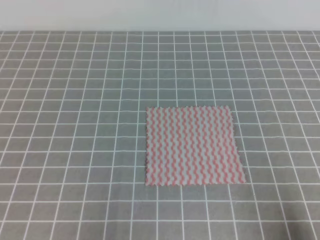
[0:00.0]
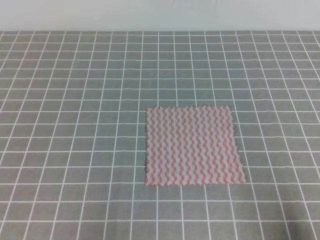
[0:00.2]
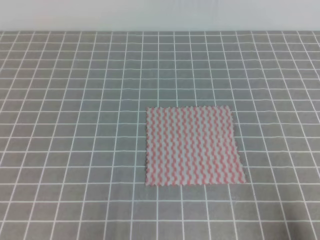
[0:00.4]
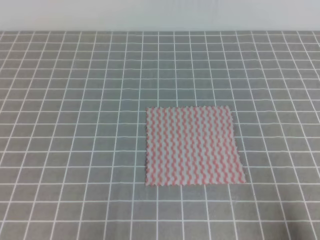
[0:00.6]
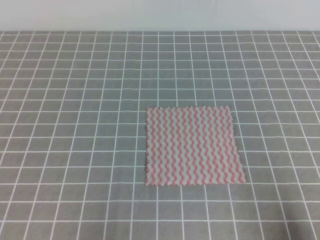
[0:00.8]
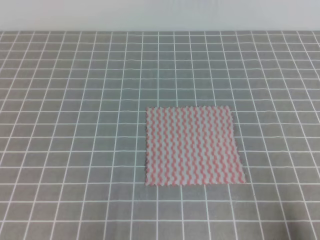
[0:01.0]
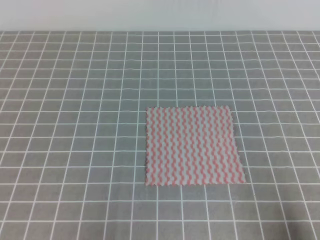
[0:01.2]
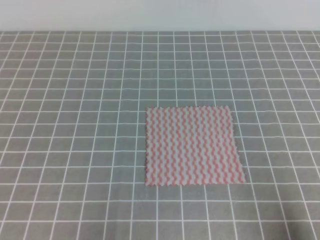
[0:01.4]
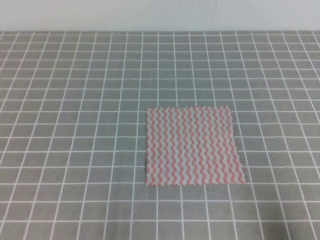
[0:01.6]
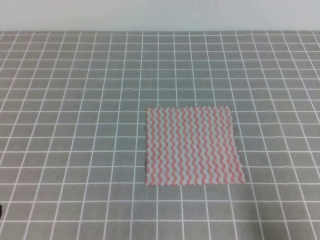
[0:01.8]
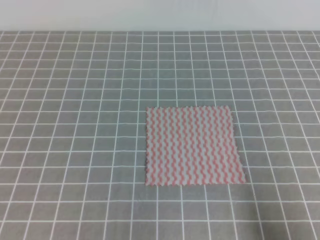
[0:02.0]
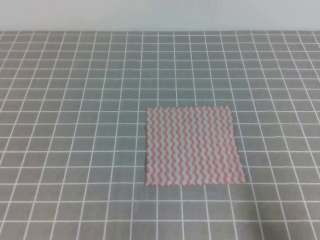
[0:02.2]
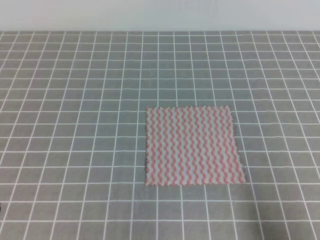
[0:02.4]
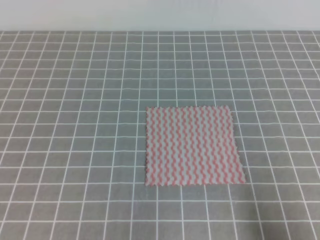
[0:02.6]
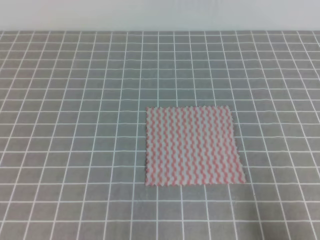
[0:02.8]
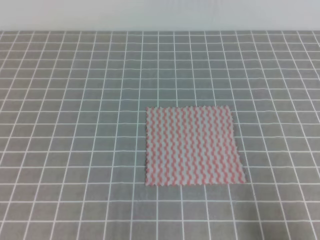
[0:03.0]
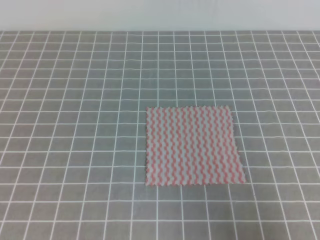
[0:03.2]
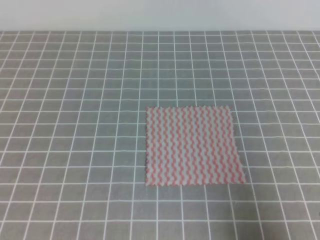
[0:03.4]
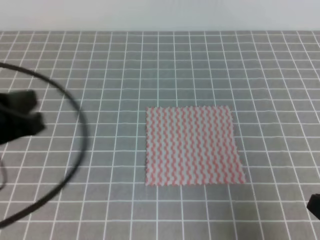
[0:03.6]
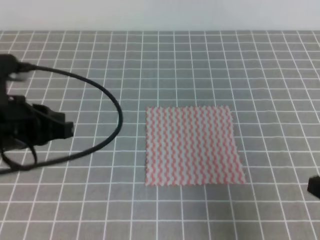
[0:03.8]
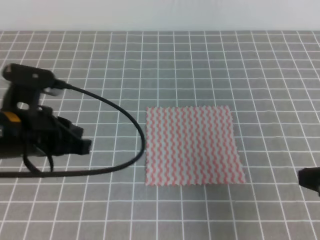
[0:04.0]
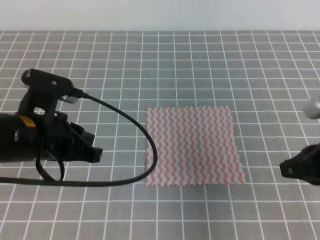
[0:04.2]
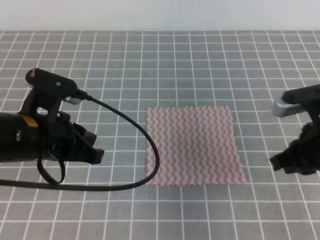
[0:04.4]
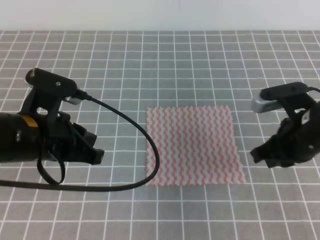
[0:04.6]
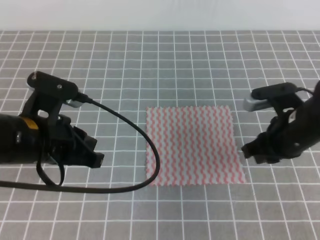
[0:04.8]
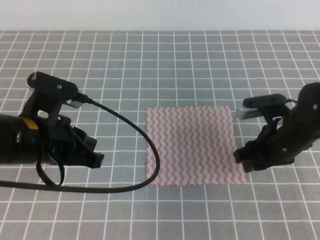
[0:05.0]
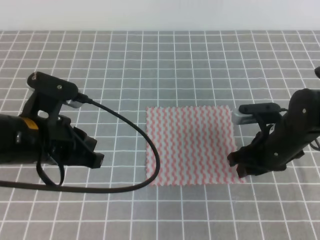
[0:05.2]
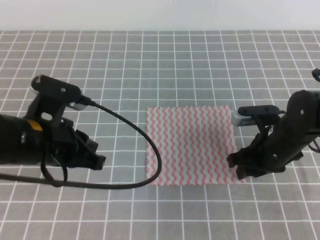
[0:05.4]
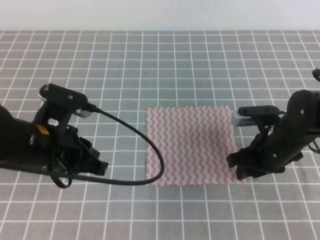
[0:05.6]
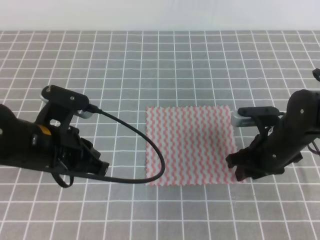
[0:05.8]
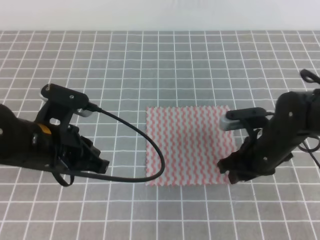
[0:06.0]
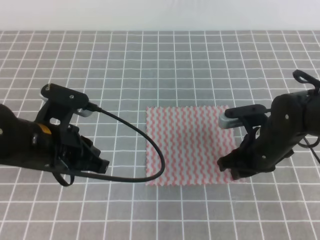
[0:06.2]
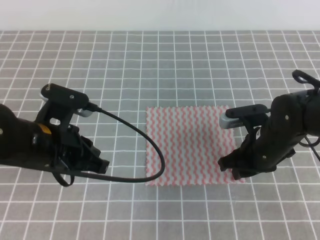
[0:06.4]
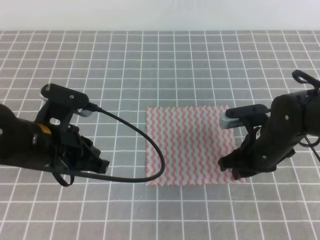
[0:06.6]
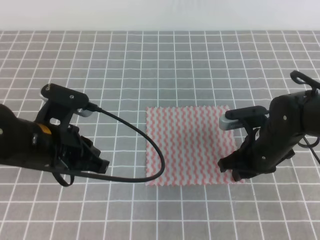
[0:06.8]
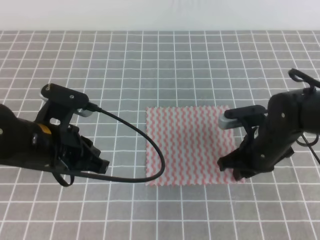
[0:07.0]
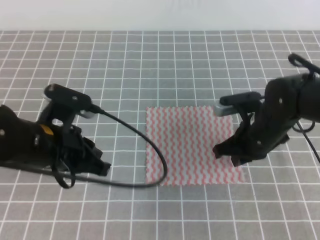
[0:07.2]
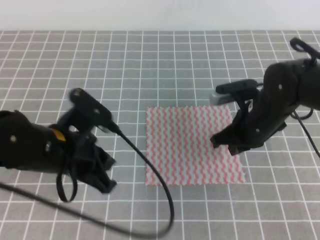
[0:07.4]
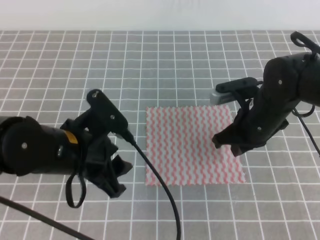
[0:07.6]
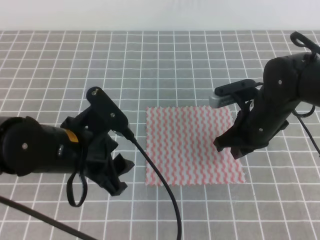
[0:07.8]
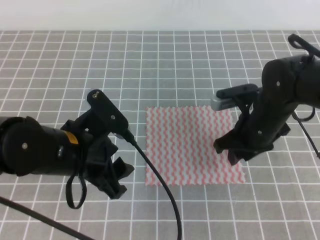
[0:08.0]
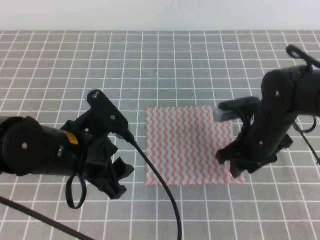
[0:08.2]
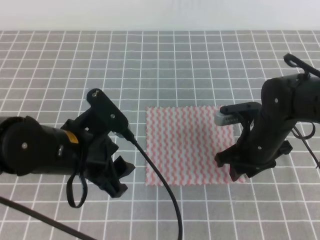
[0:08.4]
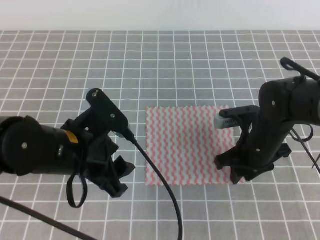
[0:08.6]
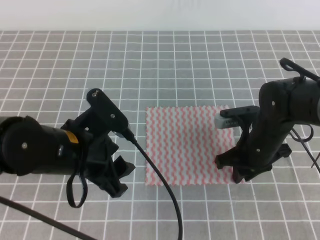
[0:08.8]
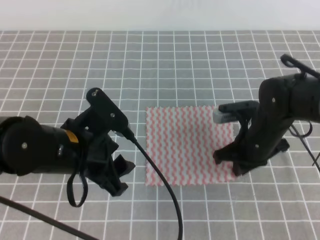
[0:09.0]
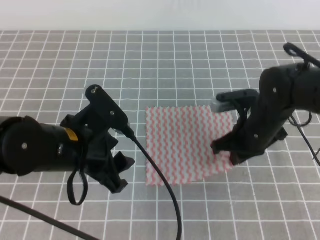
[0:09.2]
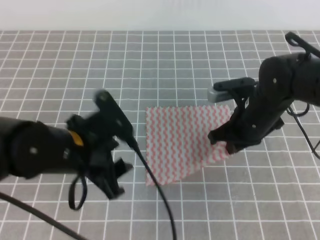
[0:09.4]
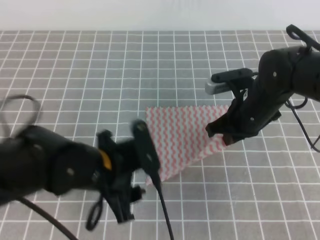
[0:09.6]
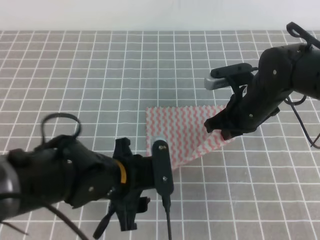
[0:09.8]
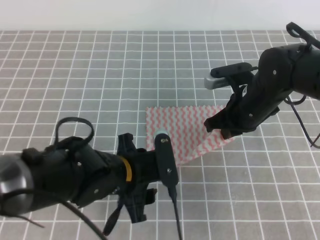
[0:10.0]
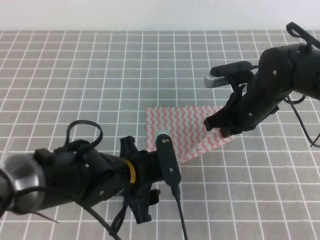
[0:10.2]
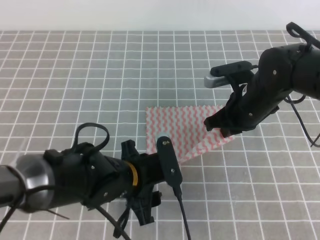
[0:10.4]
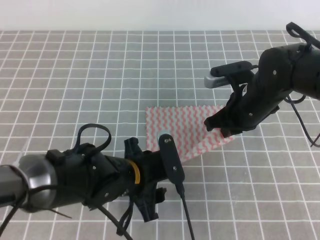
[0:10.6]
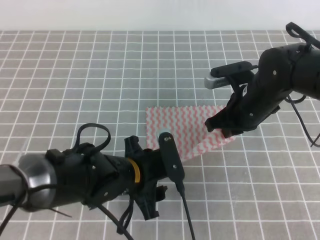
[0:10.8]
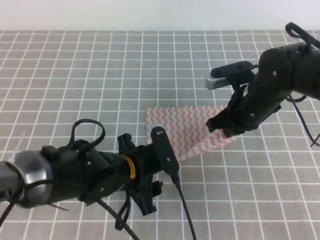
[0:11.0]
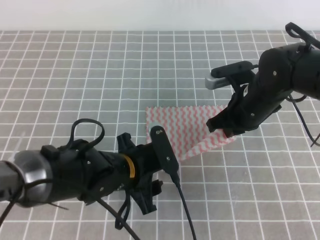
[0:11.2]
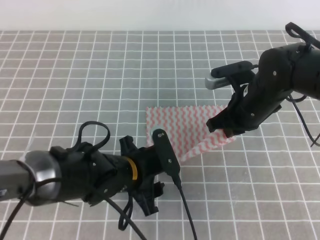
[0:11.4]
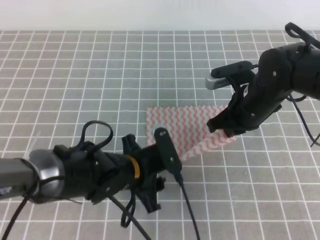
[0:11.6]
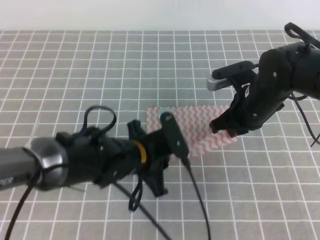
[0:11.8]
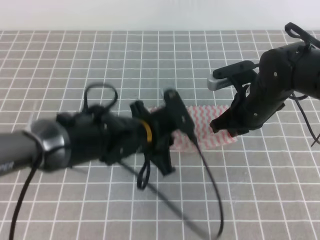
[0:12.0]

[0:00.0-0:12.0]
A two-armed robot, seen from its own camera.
0:03.0 to 0:04.4: The right gripper is displaced forward by approximately 20 cm; the left gripper goes about 20 cm forward and to the right.
0:04.4 to 0:06.0: The right gripper shifts approximately 15 cm downward, forward and to the left, and opens up.
0:06.0 to 0:07.6: The right gripper ends up roughly 5 cm from where it was, and closes up. The left gripper opens up.
0:07.6 to 0:09.0: The right gripper opens, then closes once more.
0:09.0 to 0:10.4: The right gripper moves approximately 5 cm; the left gripper heads downward and to the right, covering some 10 cm.
0:10.4 to 0:12.0: The left gripper shifts roughly 5 cm forward, and closes up.

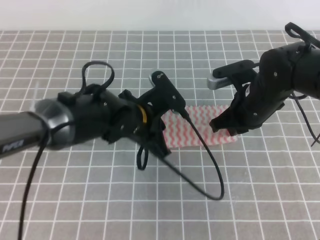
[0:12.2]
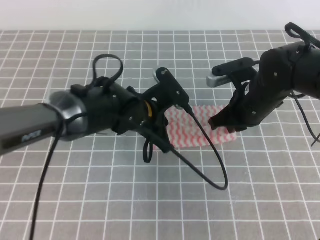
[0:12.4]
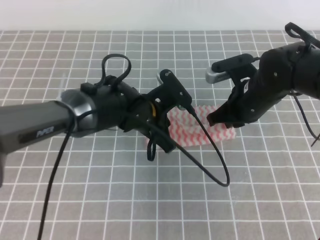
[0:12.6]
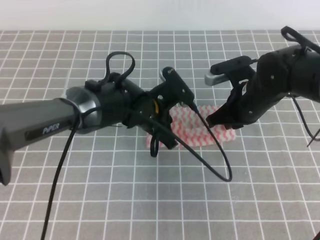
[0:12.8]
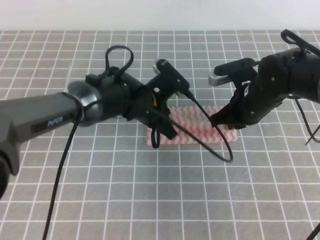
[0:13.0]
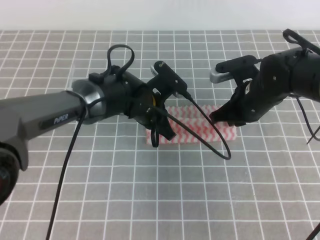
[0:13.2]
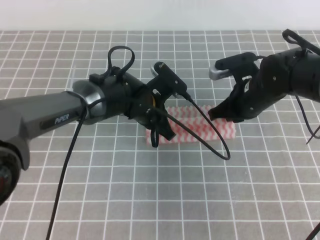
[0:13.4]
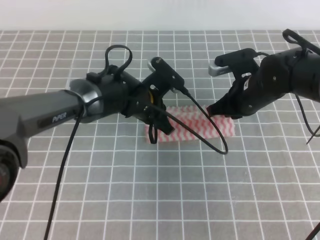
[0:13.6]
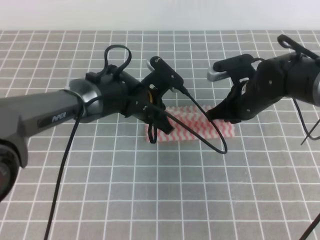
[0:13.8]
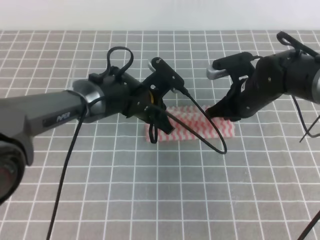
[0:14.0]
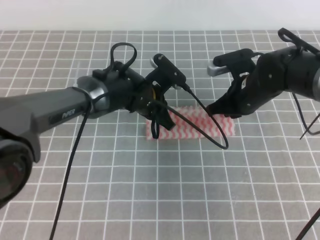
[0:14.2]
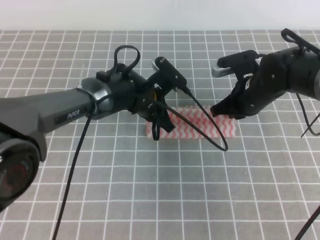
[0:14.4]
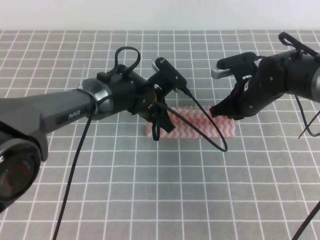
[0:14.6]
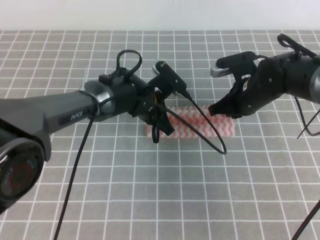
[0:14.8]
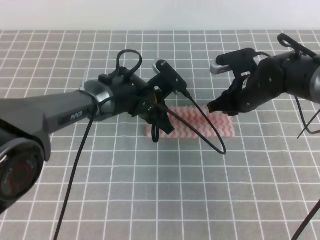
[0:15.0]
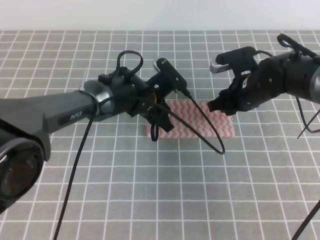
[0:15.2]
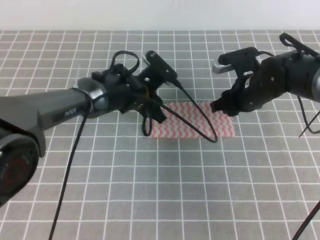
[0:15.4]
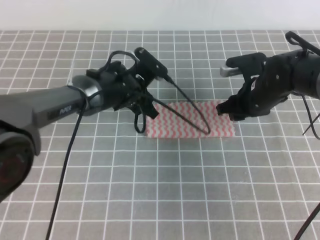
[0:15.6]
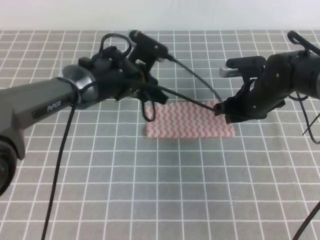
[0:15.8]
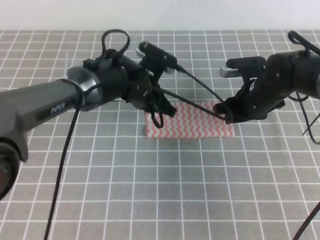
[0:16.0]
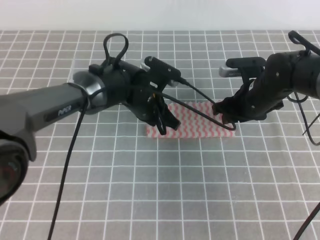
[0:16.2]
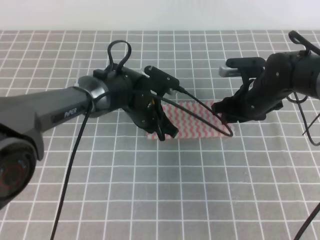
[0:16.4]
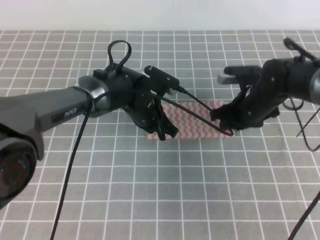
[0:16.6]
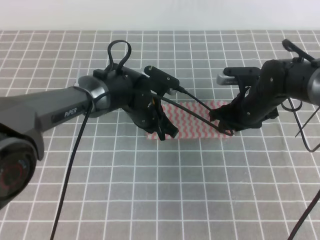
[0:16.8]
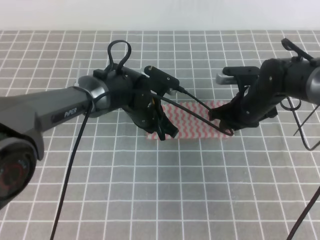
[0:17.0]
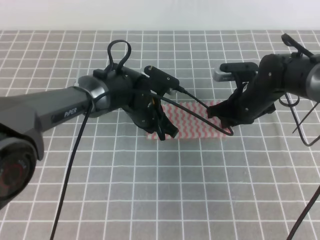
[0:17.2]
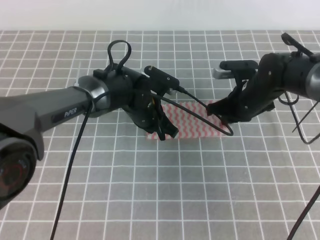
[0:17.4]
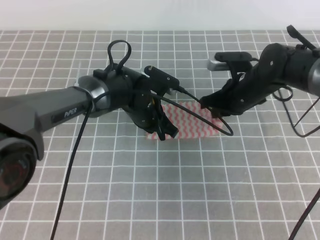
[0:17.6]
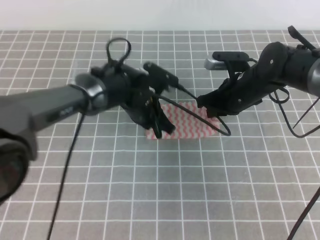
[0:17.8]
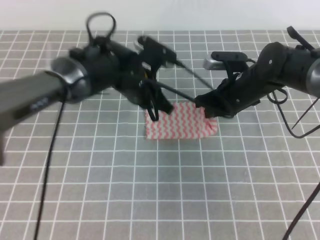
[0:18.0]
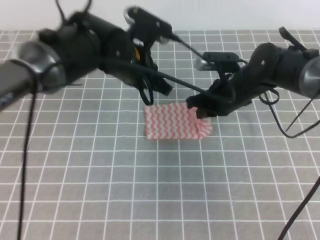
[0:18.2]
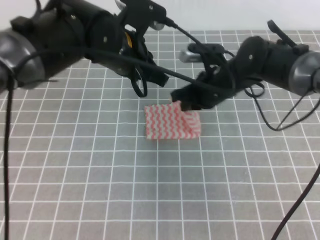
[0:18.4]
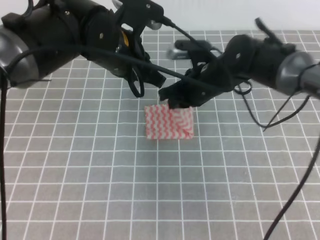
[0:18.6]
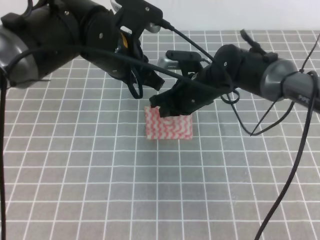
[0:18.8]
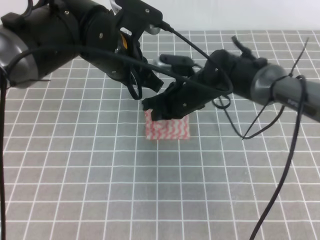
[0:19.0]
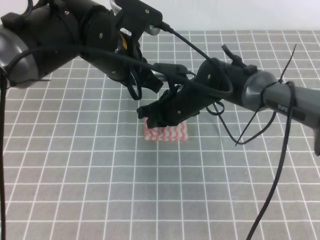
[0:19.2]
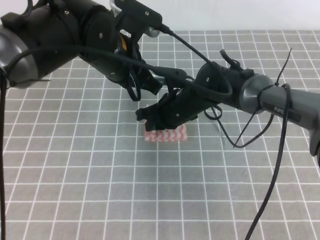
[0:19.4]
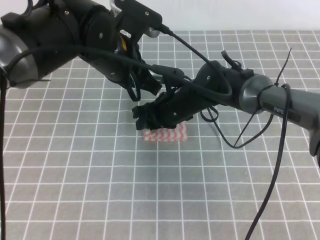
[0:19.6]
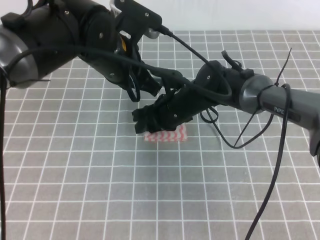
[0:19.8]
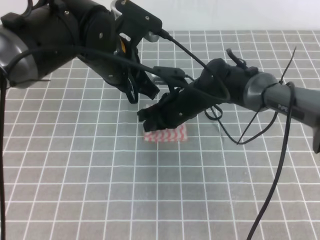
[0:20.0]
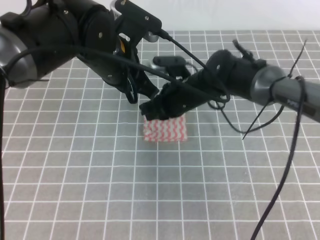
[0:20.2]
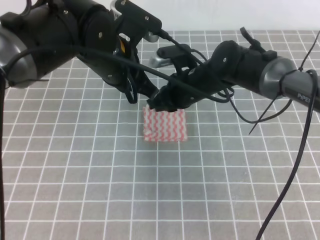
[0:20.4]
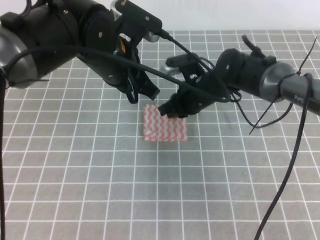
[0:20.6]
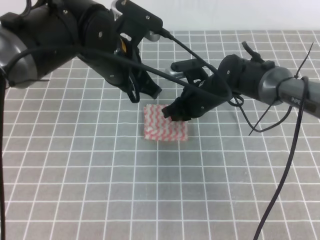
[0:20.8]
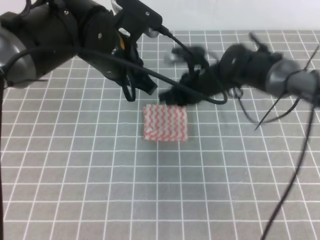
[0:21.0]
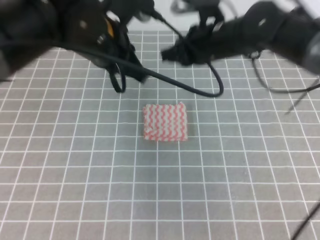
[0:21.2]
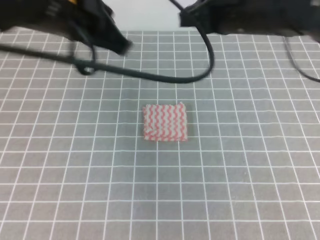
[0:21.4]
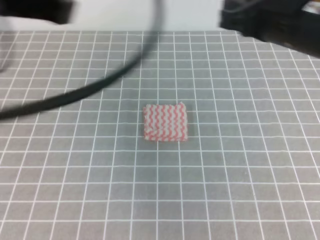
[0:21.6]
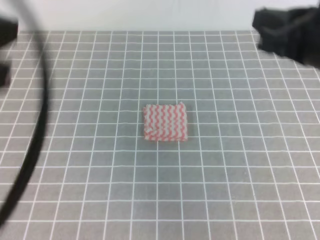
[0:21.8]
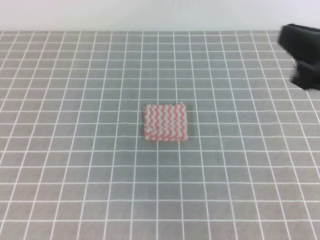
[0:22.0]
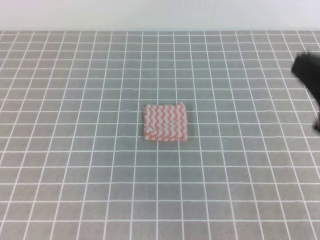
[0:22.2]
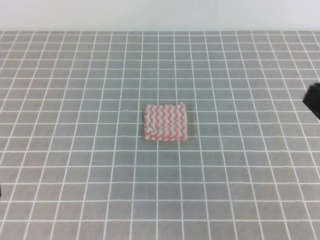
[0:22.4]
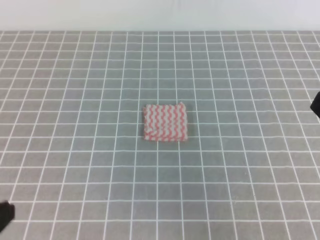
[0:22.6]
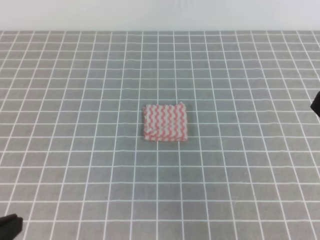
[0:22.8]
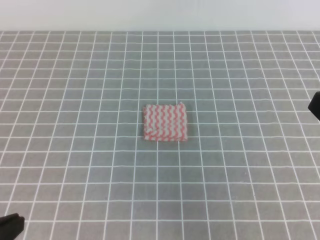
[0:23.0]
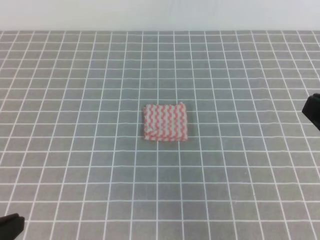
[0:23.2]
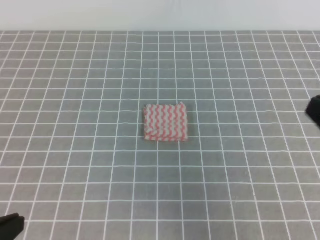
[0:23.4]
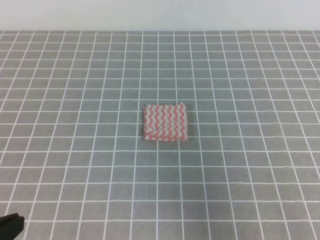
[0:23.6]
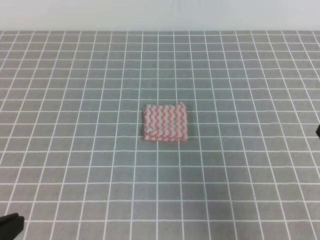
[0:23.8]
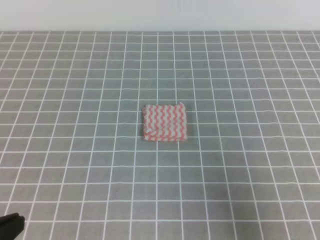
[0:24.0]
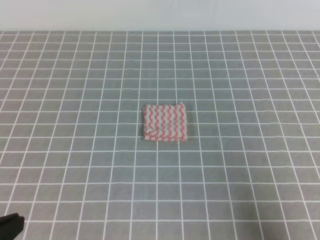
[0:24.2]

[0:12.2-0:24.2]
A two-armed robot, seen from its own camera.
0:12.2 to 0:13.8: The left gripper is displaced forward by approximately 5 cm.
0:13.8 to 0:15.2: The left gripper opens its fingers. The right gripper opens.
0:15.2 to 0:16.6: The left gripper closes up.
0:16.6 to 0:18.2: The left gripper is displaced upward by about 10 cm. The right gripper ends up some 5 cm from where it was, and closes up.
0:18.2 to 0:19.8: The left gripper changes place by approximately 5 cm, while the right gripper moves to the left, about 10 cm, and opens up.
0:19.8 to 0:21.2: The left gripper shifts approximately 5 cm upward; the right gripper travels upward and to the right by about 15 cm, and closes up.
0:21.2 to 0:22.6: The right gripper goes approximately 35 cm backward and to the right. Meanwhile the left gripper is displaced backward and to the left by approximately 30 cm.
0:22.6 to 0:24.2: The right gripper shifts some 15 cm downward and to the right.
